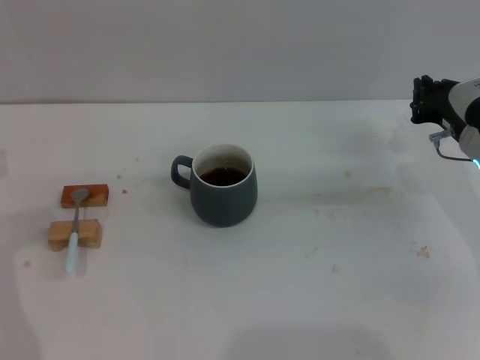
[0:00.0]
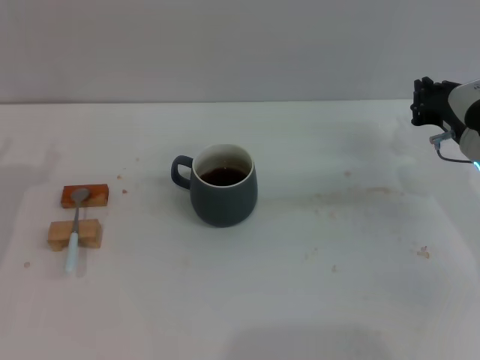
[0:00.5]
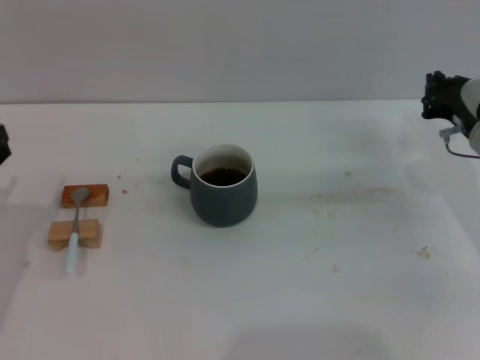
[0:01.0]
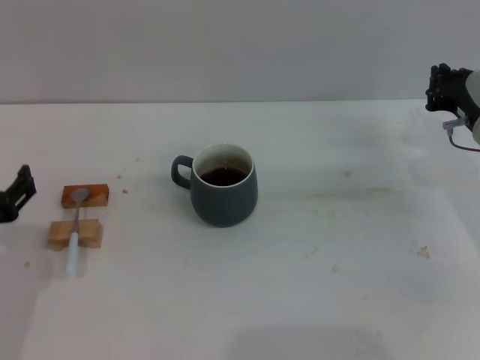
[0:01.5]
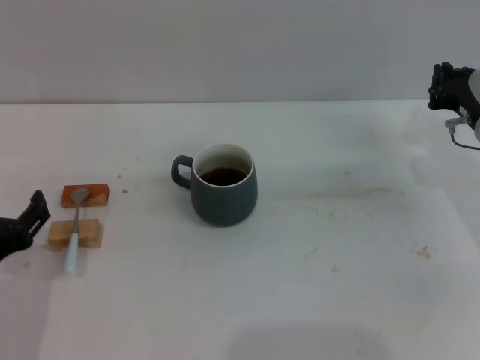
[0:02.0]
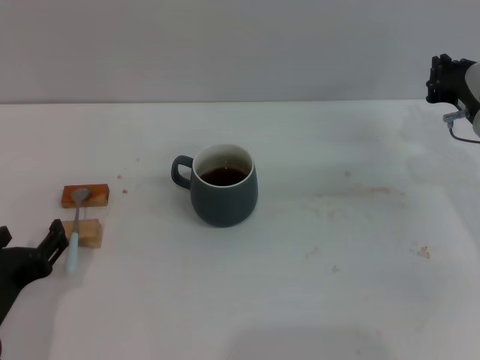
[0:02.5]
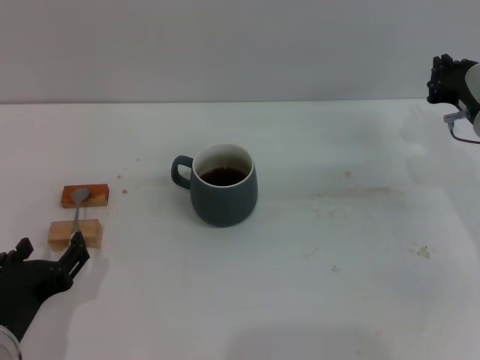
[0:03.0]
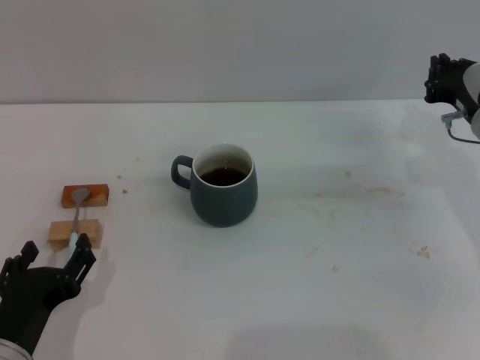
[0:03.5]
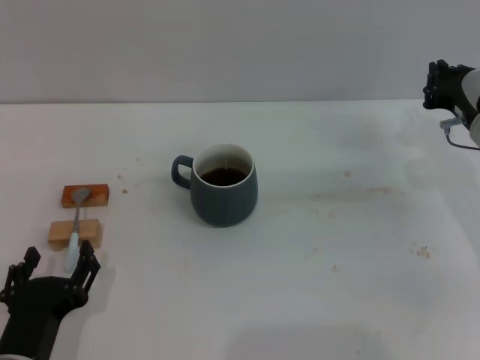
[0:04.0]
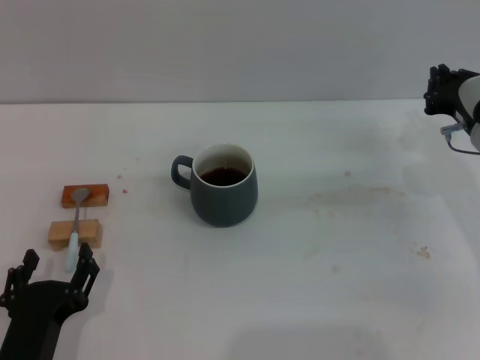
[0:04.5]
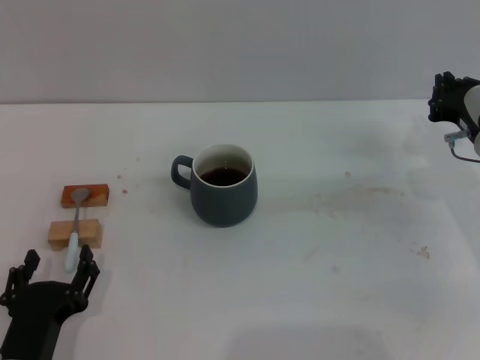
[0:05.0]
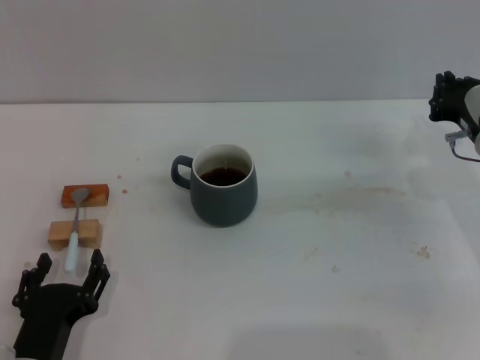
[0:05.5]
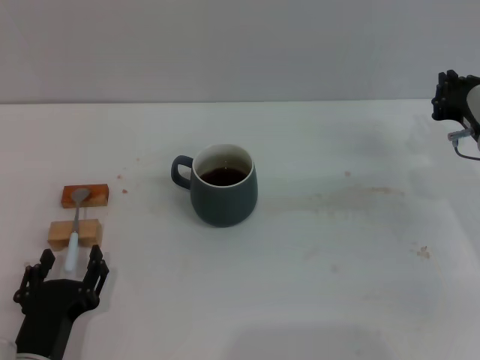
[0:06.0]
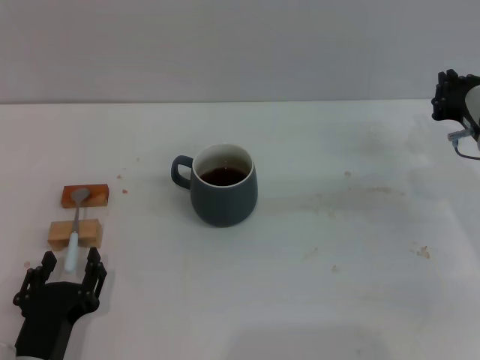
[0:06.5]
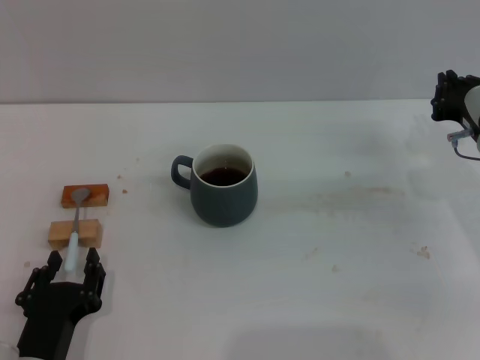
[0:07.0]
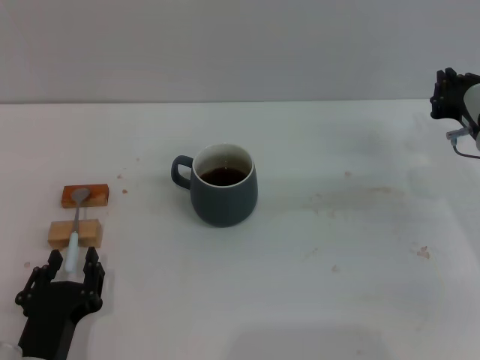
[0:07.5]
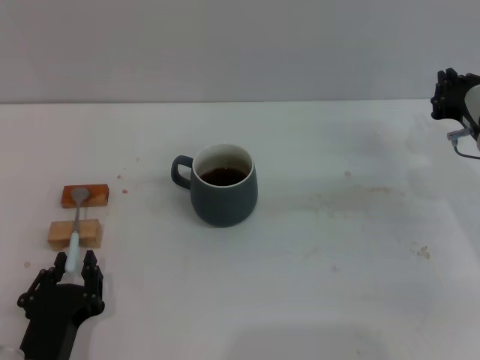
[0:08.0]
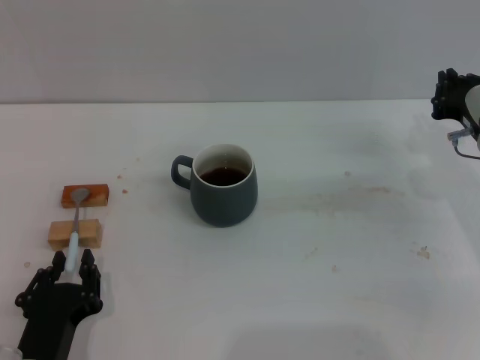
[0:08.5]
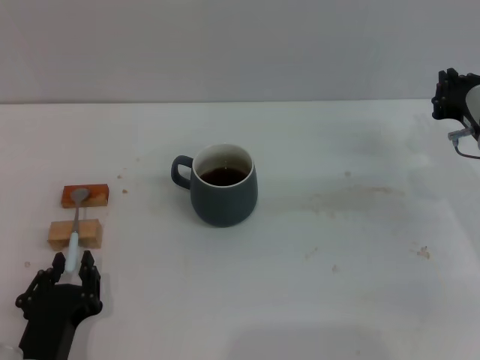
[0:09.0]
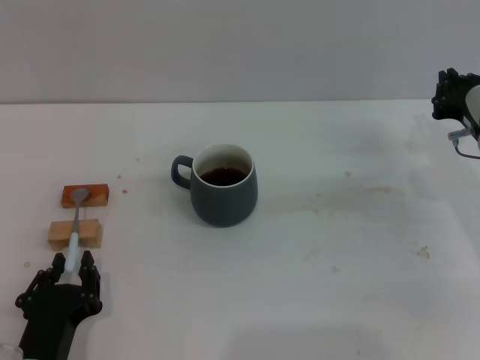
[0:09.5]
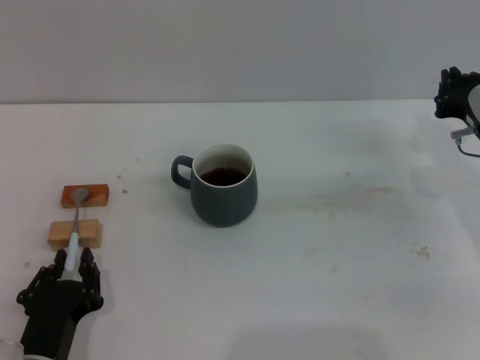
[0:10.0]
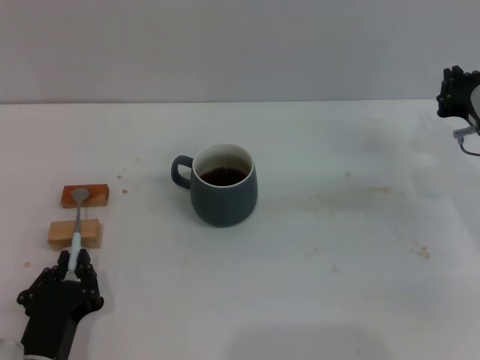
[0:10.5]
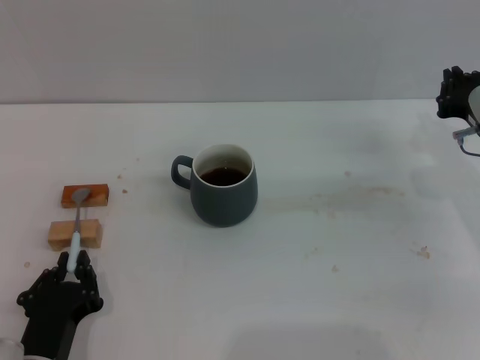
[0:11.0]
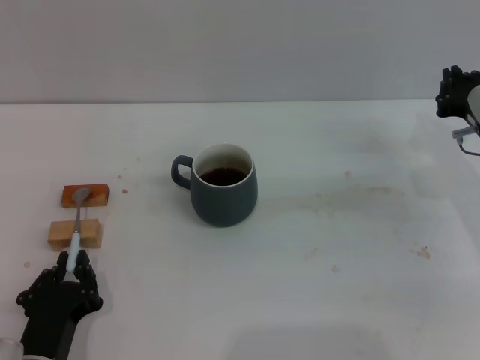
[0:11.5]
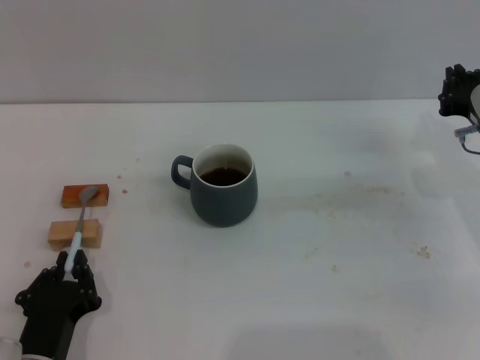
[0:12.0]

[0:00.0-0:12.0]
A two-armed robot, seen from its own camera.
Task of the whole recording: Move the grey cup to the center, lift the blue spoon, stir it three times in the cup, and put the spoon into the cup.
0:00.0 to 0:02.0: The left gripper goes approximately 10 cm backward and to the right.
0:02.0 to 0:04.0: The left gripper heads downward, covering about 10 cm.
0:04.0 to 0:06.0: The grippers make only small movements.
0:06.0 to 0:08.0: The left gripper closes its fingers.
0:08.0 to 0:12.0: Both grippers stay about where they are.

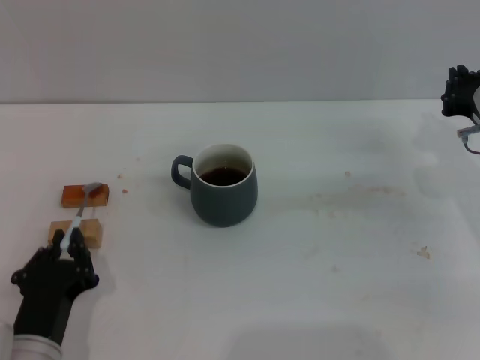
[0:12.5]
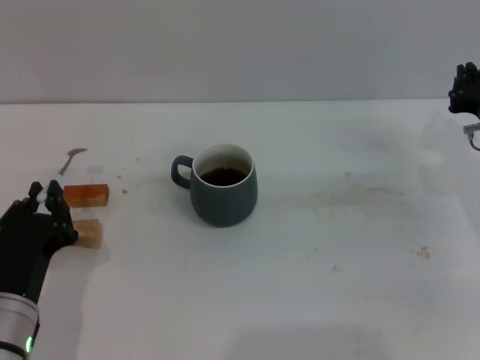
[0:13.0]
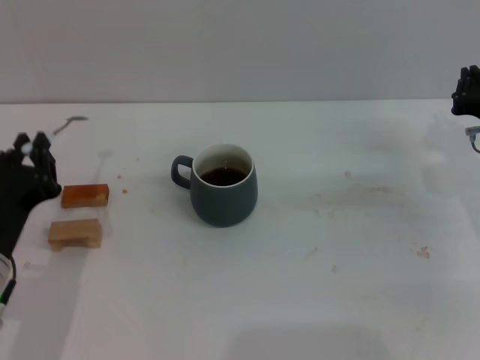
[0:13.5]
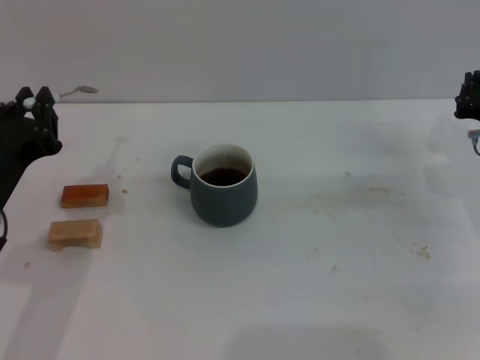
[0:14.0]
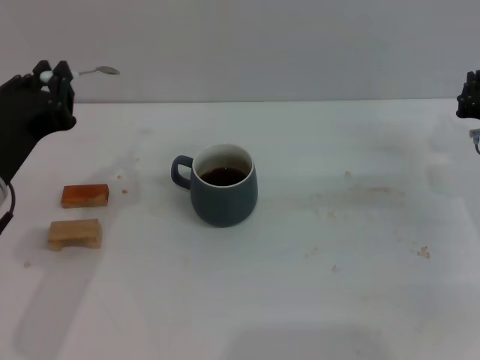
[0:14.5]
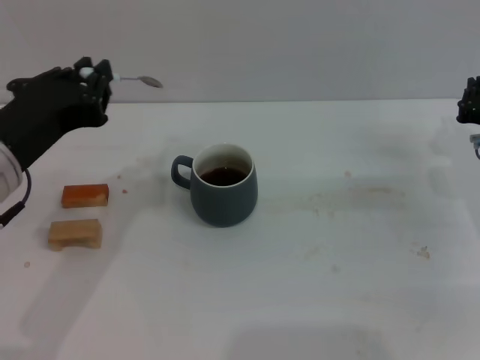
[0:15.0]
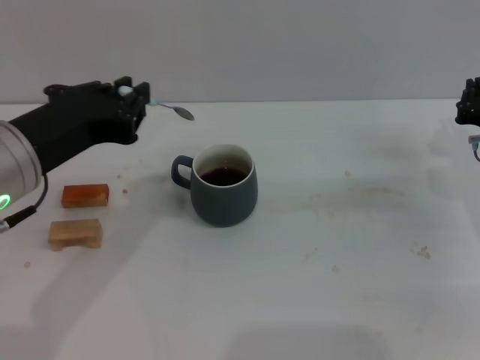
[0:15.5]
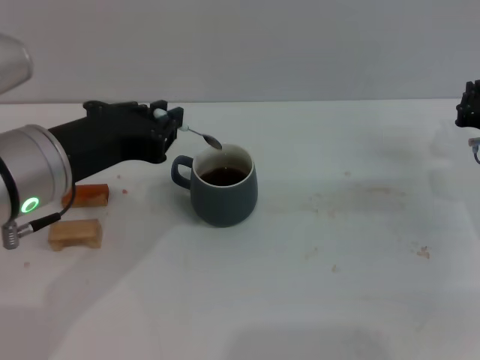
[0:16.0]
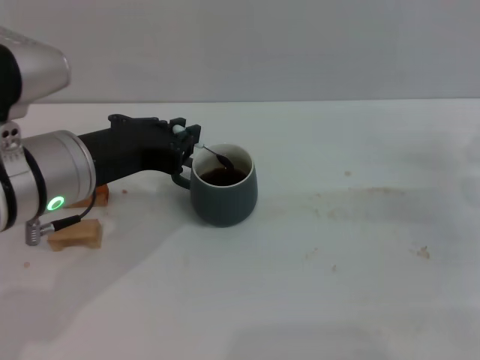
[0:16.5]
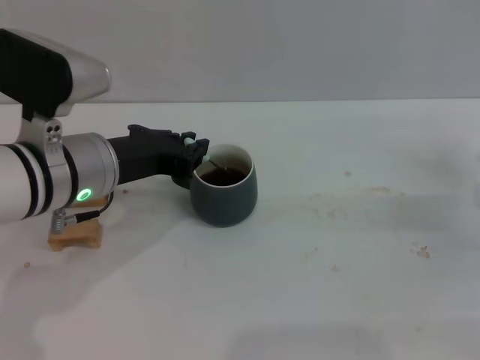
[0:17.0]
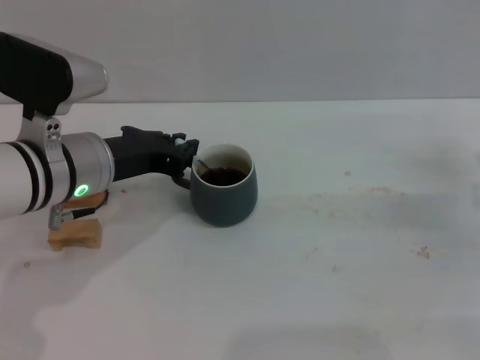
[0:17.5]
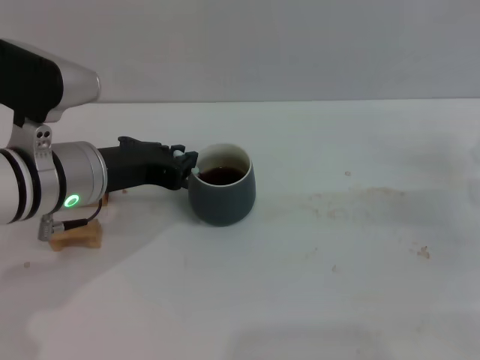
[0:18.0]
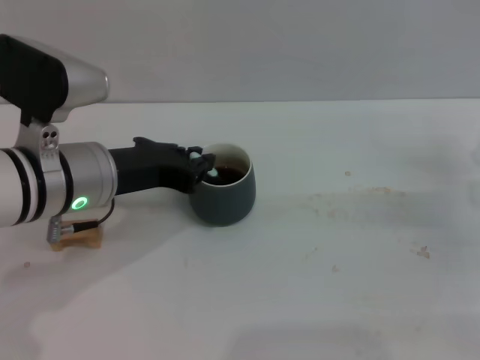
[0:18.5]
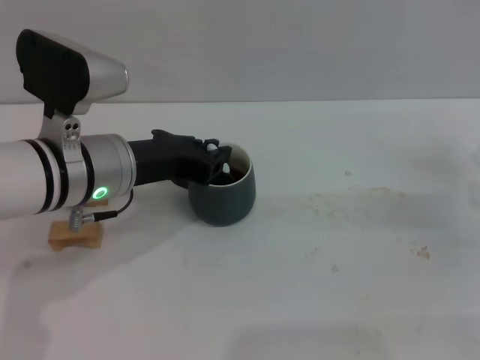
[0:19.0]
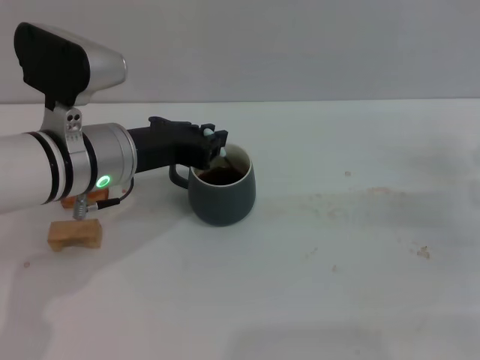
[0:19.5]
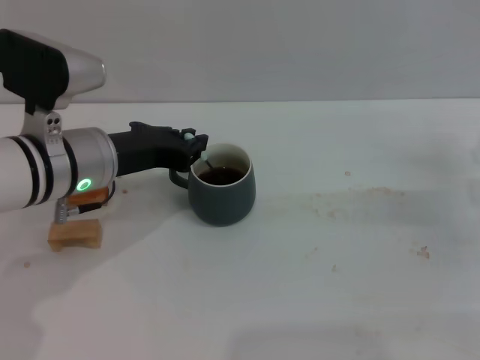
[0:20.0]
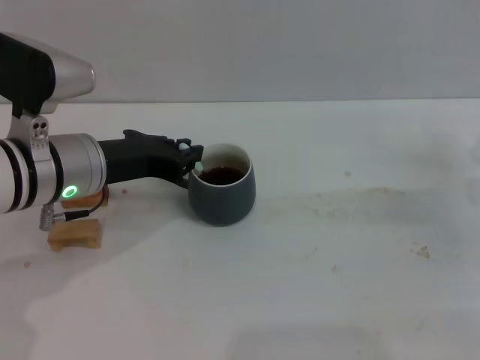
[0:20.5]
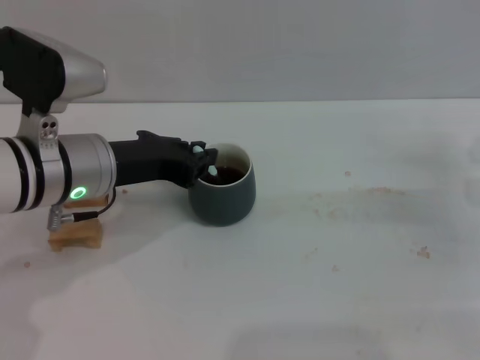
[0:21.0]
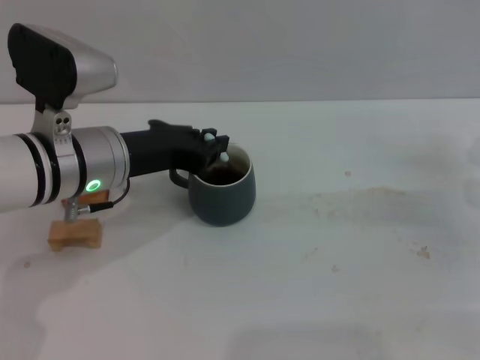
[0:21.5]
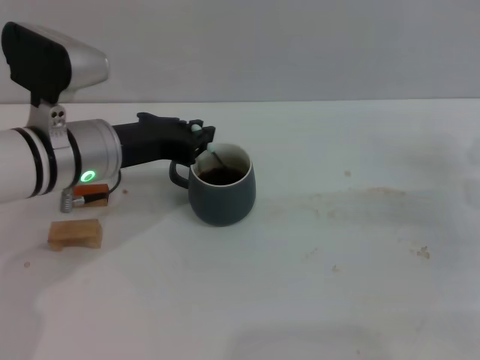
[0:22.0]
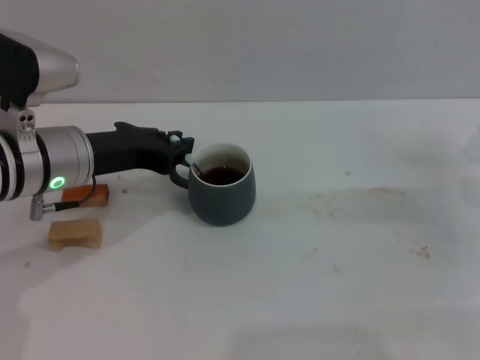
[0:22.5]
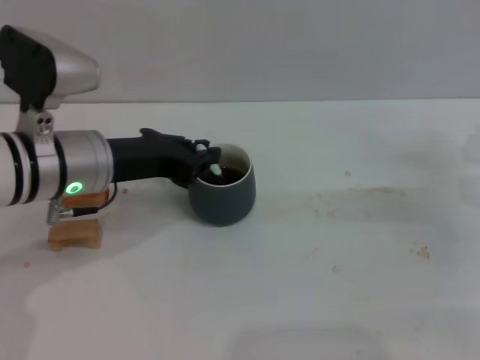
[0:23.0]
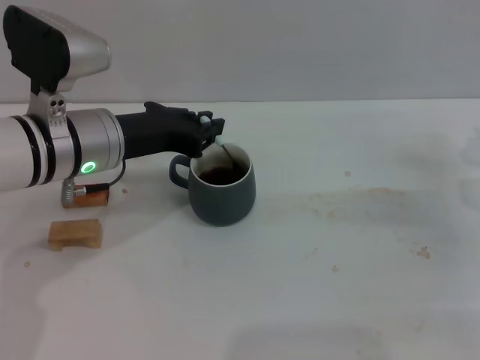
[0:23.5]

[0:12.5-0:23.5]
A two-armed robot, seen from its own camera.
Task of the whole recording: Move the grey cup to the center, lift the blue spoon, stir it three times in the cup, and put the spoon into the cup.
0:12.5 to 0:14.5: The left gripper heads upward and forward, covering approximately 20 cm.
0:14.5 to 0:16.0: The left gripper changes place by approximately 5 cm.
0:16.0 to 0:18.0: The left gripper is displaced forward by some 5 cm.
0:18.0 to 0:23.5: The grippers make only small movements.

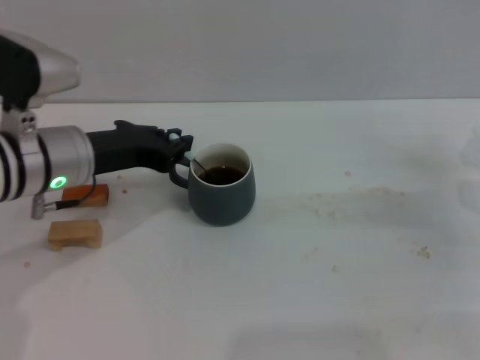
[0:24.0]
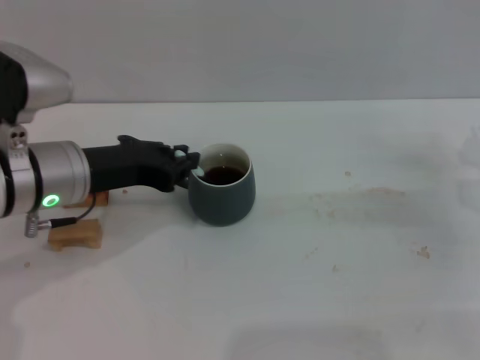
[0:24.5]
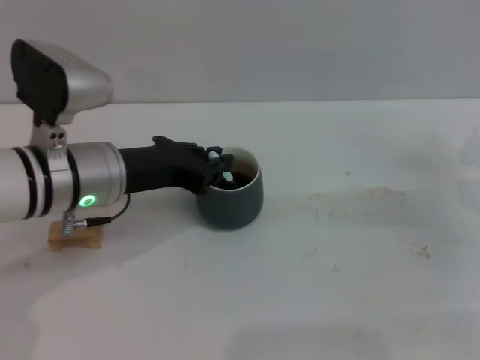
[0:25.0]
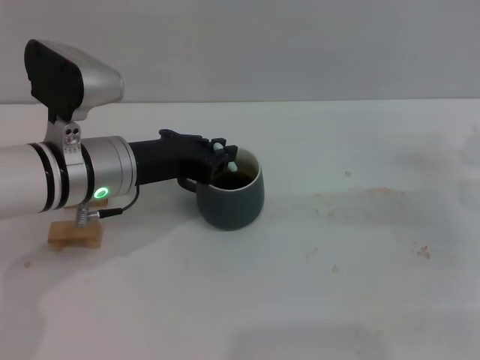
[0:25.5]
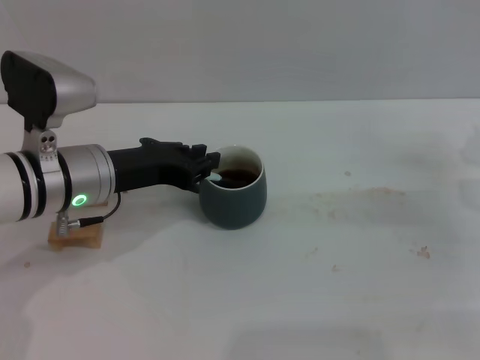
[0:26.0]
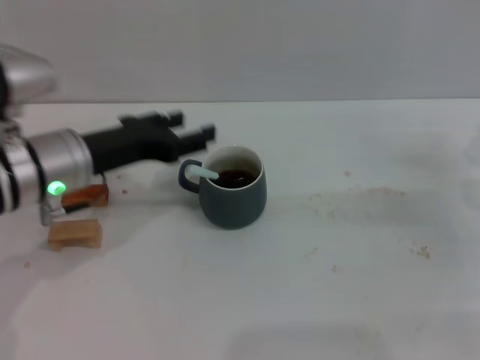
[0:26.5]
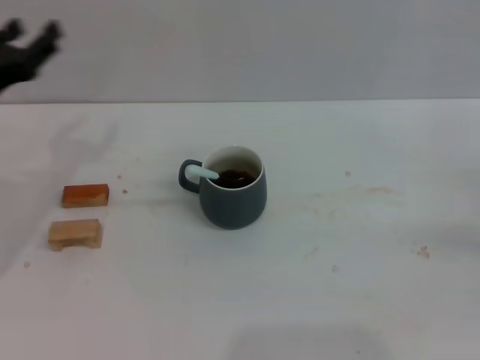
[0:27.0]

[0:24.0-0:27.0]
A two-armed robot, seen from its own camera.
Task of the whole recording: Move the grey cup to the center, lift the blue spoon, stir it three times in the cup, and put the spoon into the cup.
Step, 0:24.0 to 0:26.0: Stir the coffee in the cup with the left gripper.
0:24.0 to 0:25.5: There are only small adjustments of the grippers.
0:25.5 to 0:27.0: The right gripper is displaced to the right by some 5 cm; the left gripper is displaced to the left by about 15 cm, and opens up.
